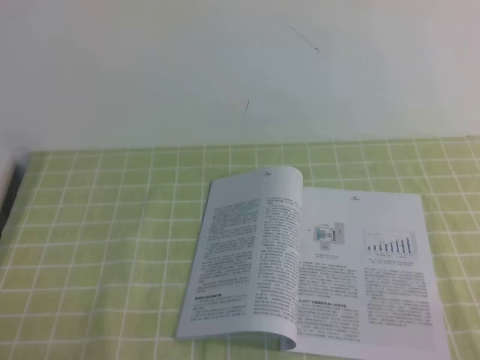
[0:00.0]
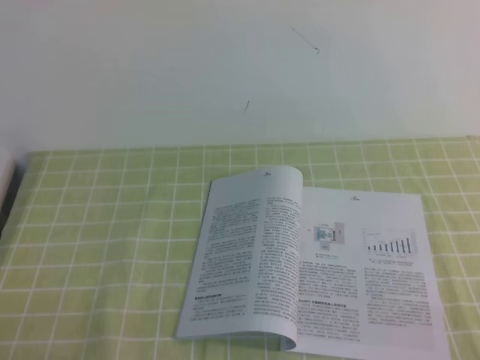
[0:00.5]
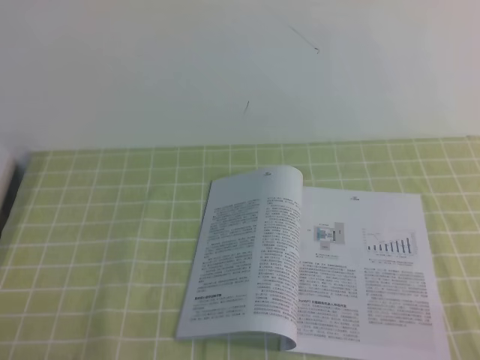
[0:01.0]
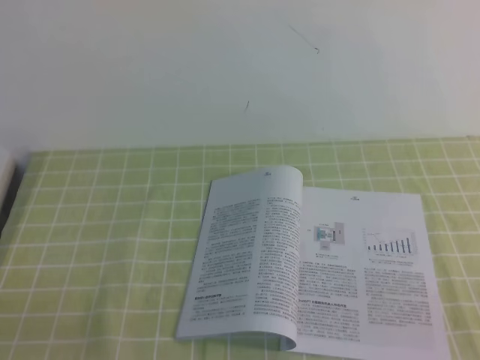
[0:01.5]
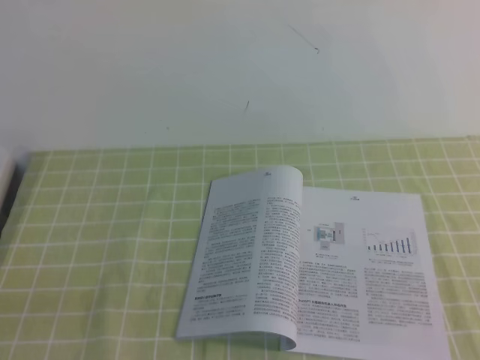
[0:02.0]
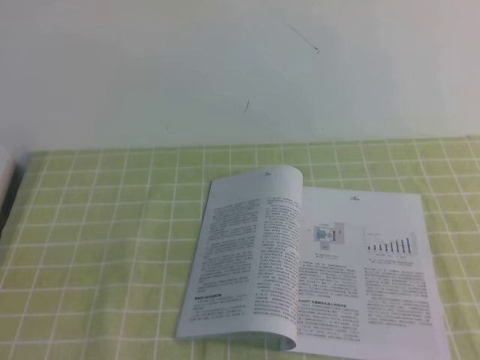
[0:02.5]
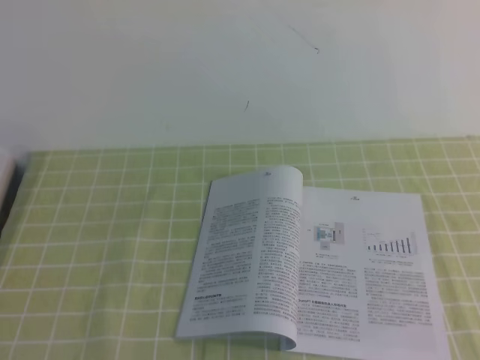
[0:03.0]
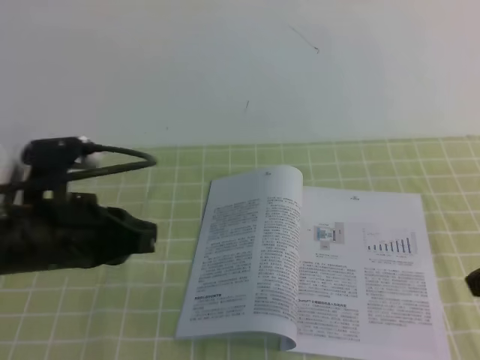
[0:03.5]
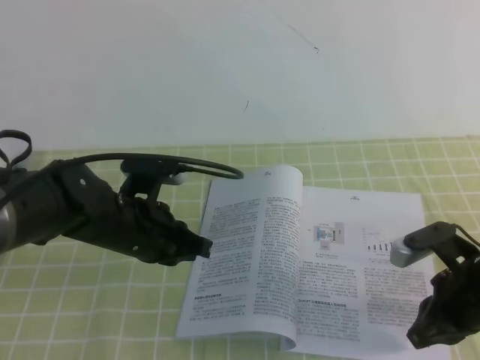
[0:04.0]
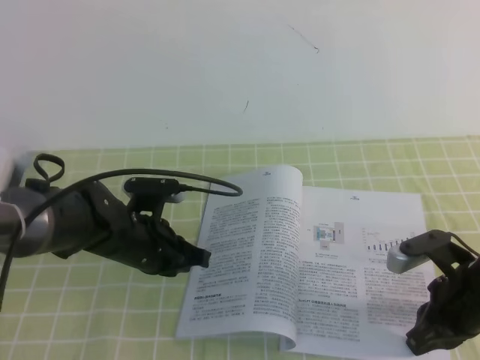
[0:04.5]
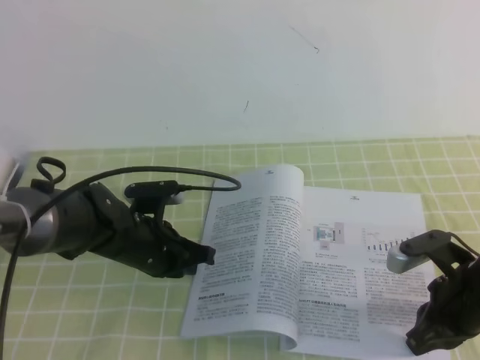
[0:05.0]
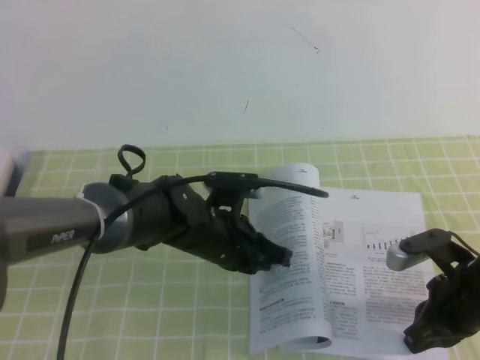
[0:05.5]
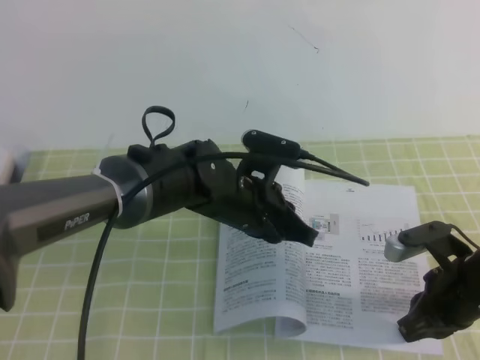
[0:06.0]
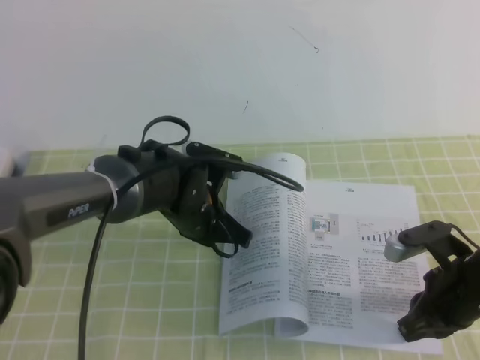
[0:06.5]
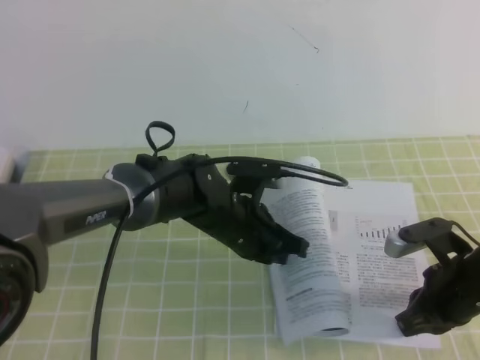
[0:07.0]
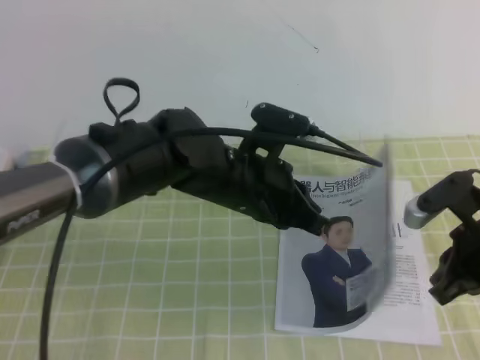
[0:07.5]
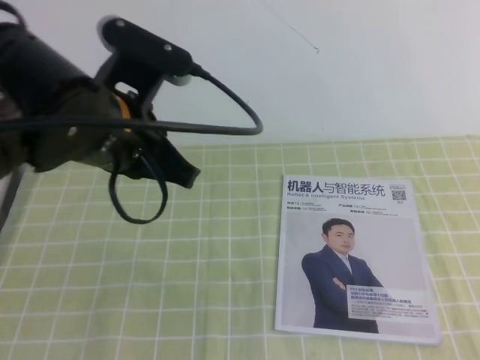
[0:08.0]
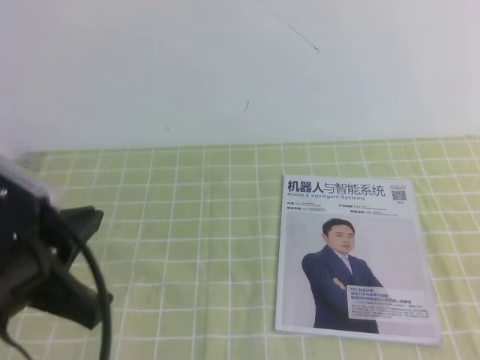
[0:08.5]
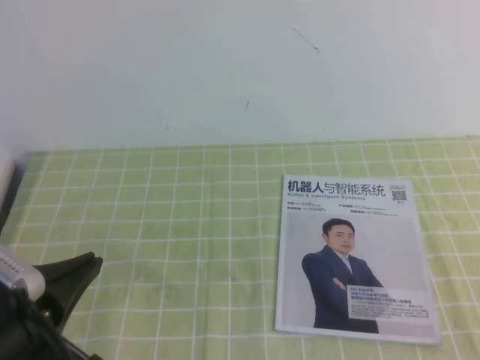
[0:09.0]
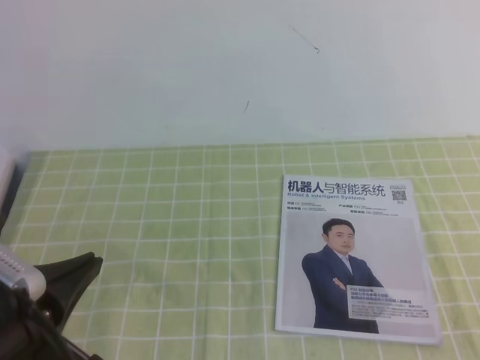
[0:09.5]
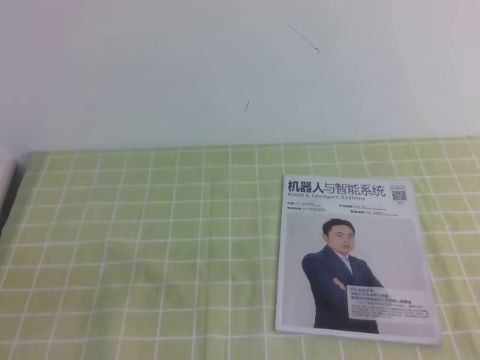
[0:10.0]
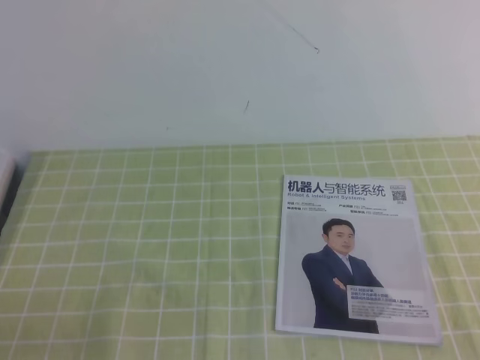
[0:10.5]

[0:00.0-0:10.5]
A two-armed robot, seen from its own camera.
Task of the whole recording: on the green tablecloth, hold the book with one hand and close it with the other.
0:02.0 to 0:04.0: The right gripper is displaced forward and downward by some 25 cm, while the left gripper moves forward and to the right, approximately 30 cm.
0:04.0 to 0:06.5: The left gripper goes about 10 cm to the right and forward.
0:06.5 to 0:08.5: The left gripper is displaced backward, upward and to the left by roughly 30 cm. The right gripper shifts roughly 25 cm upward, backward and to the right.
0:08.5 to 0:10.5: The right gripper is displaced downward by approximately 5 cm. Meanwhile the left gripper travels downward, backward and to the left by roughly 20 cm.
